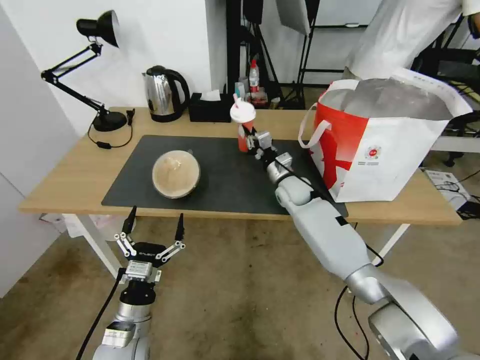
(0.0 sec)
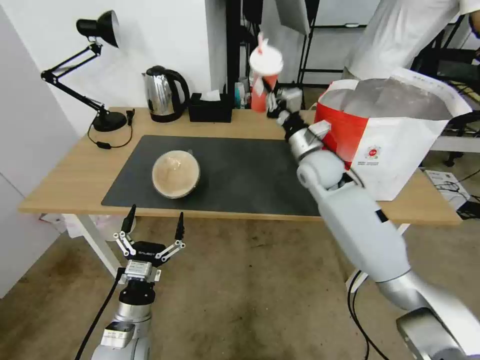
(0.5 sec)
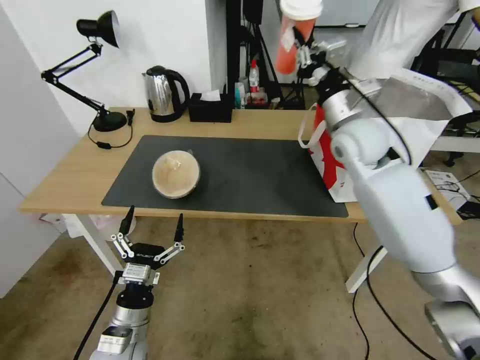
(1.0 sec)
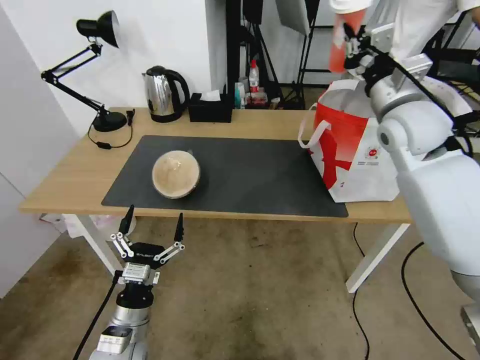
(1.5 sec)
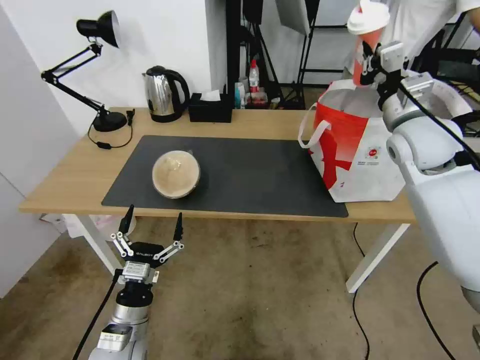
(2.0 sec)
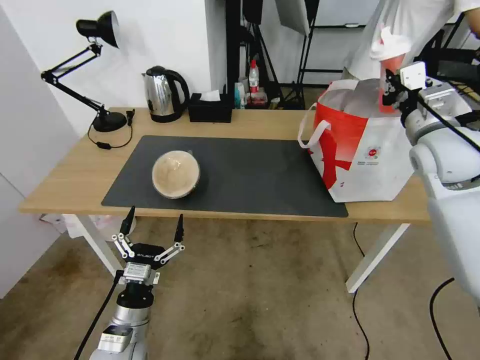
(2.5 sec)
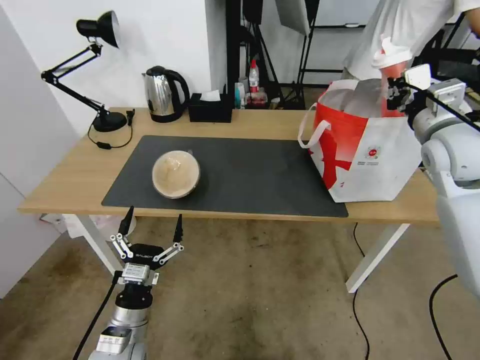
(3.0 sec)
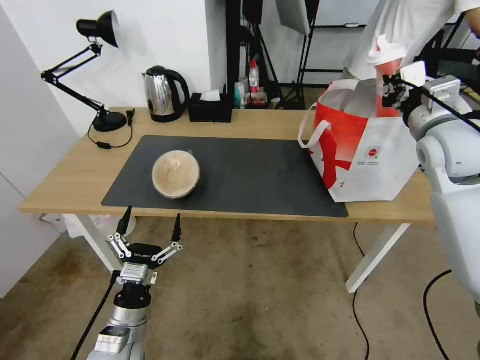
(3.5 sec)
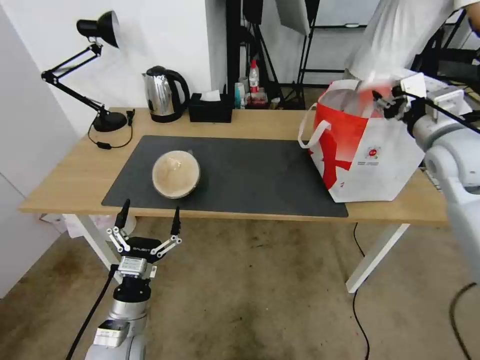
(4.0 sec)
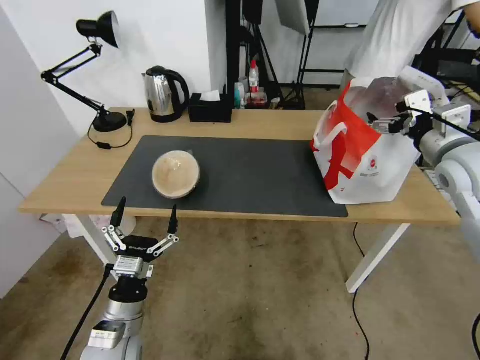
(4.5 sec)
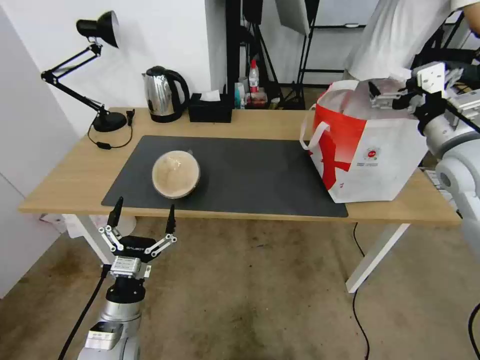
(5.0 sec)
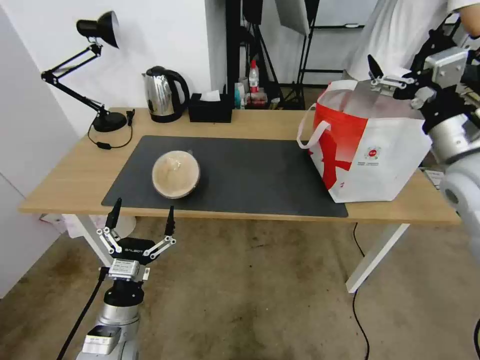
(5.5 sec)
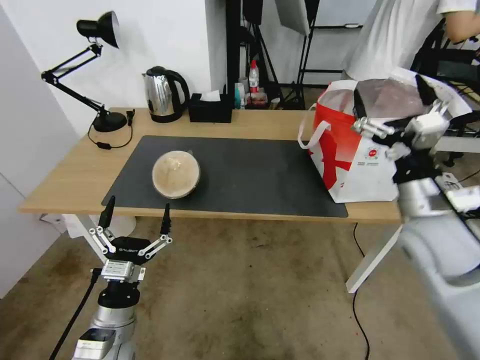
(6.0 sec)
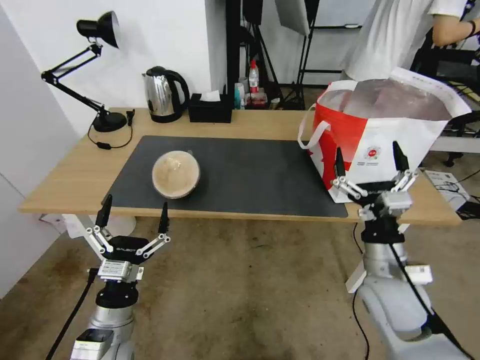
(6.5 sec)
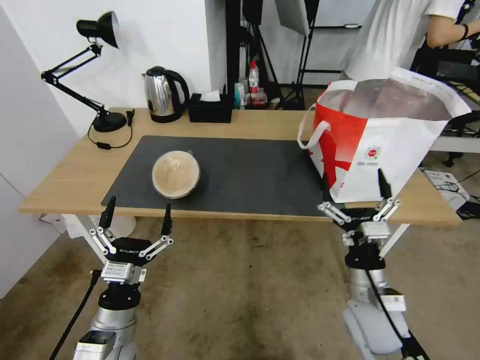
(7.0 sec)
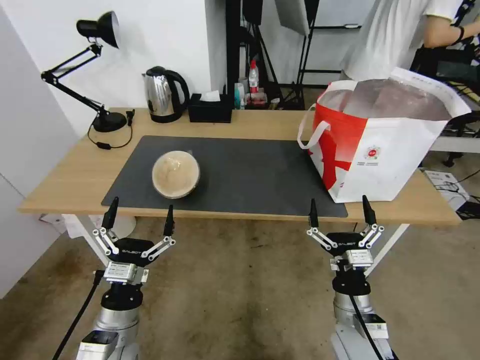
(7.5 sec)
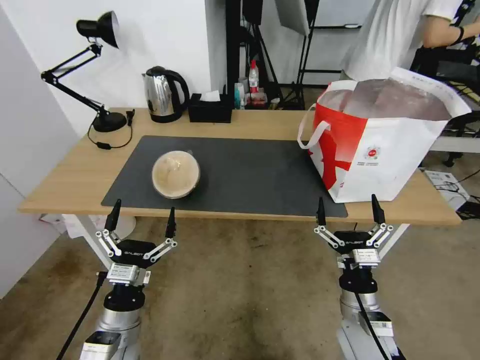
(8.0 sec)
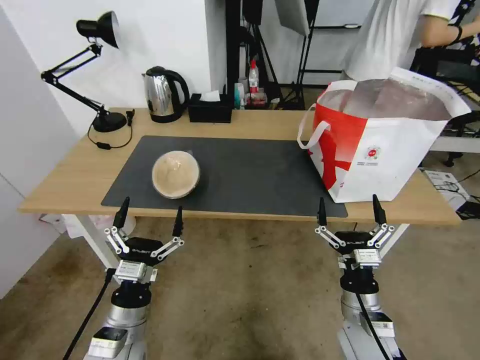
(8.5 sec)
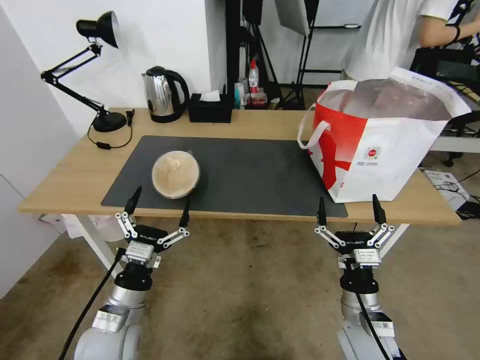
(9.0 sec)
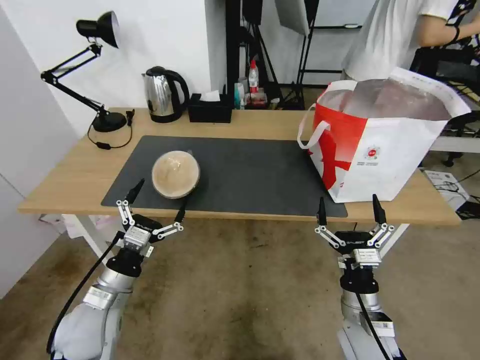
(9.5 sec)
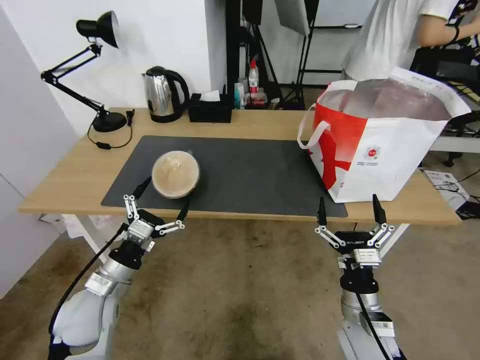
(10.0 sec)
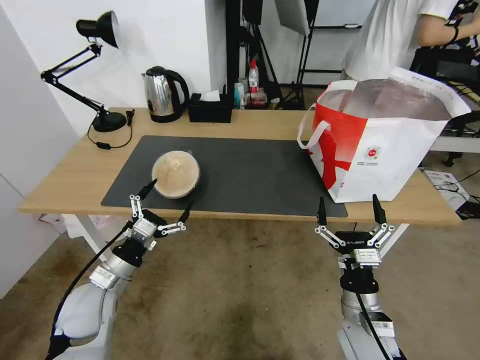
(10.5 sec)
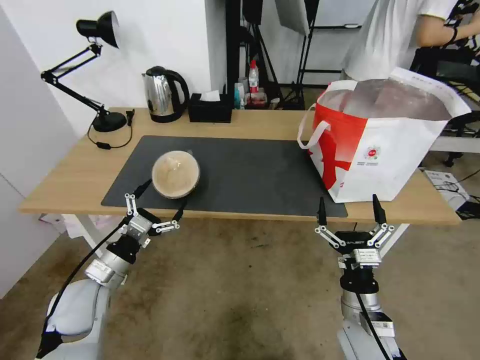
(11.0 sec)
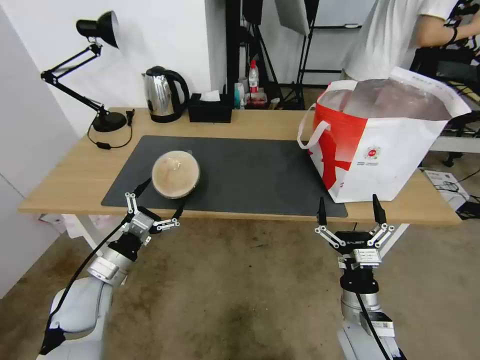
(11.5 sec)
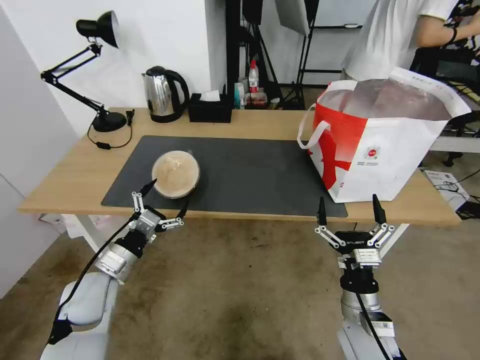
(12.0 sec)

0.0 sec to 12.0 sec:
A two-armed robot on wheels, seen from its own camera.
Task of the whole recording: Pick up the trash from the table and place it into the takeout bag.
0.0 sec to 2.0 sec: The right gripper travels upward and to the right by some 30 cm.
2.0 sec to 4.0 sec: The right gripper shifts by some 5 cm, and opens.
4.0 sec to 6.0 sec: The right gripper goes about 15 cm backward, downward and to the left, and opens.
6.0 sec to 8.0 sec: The right gripper shifts about 25 cm downward and backward.
8.0 sec to 10.0 sec: The left gripper goes roughly 10 cm forward and to the left.
10.0 sec to 12.0 sec: The grippers stay close to where they were, moving slightly.

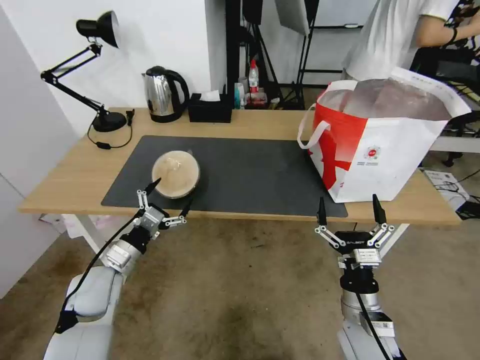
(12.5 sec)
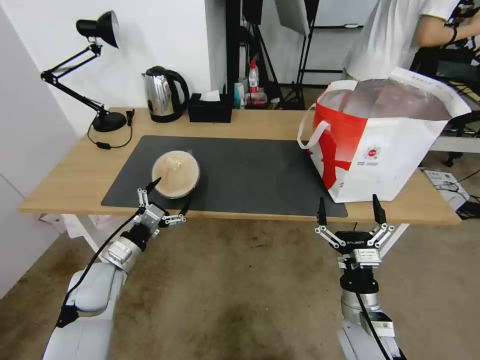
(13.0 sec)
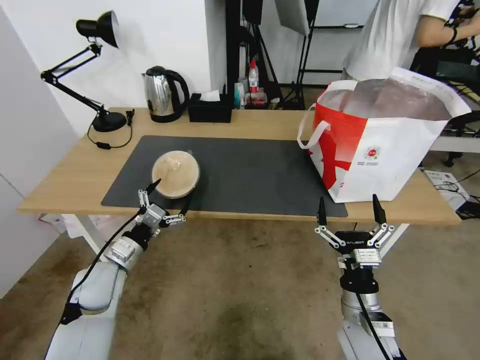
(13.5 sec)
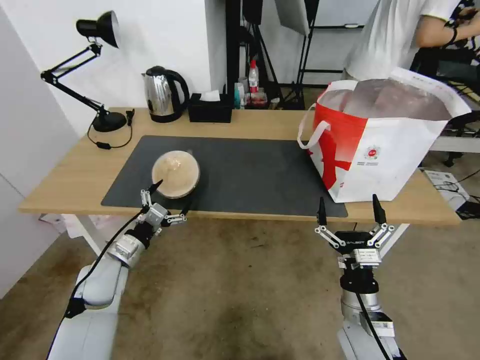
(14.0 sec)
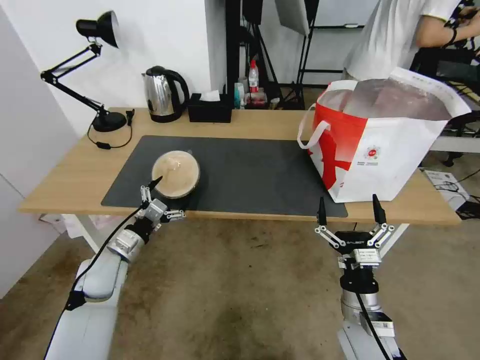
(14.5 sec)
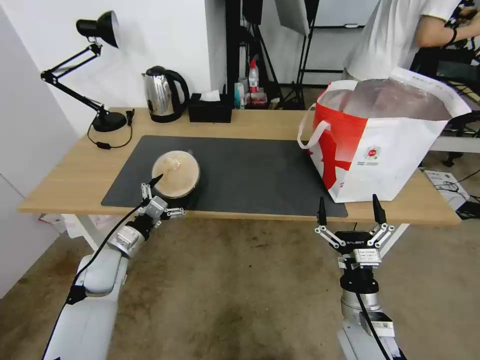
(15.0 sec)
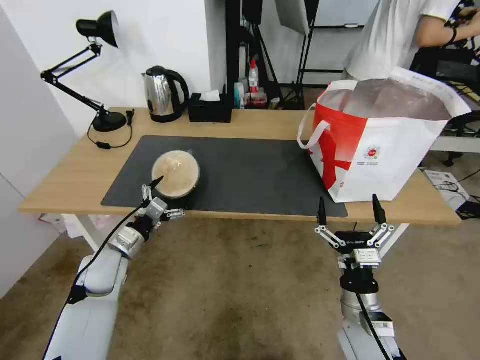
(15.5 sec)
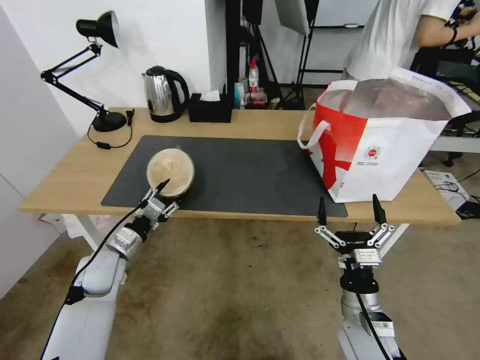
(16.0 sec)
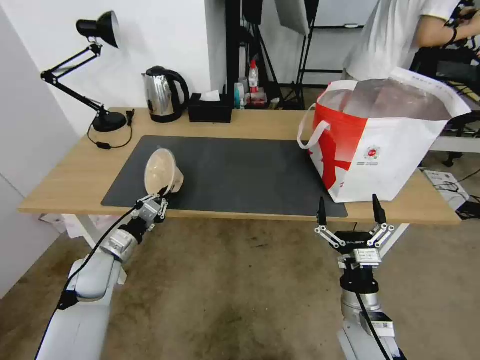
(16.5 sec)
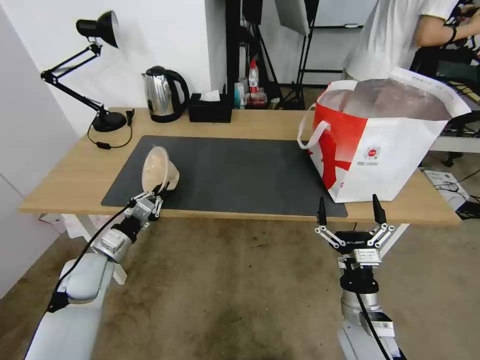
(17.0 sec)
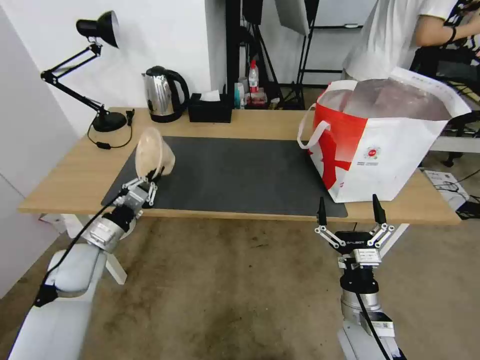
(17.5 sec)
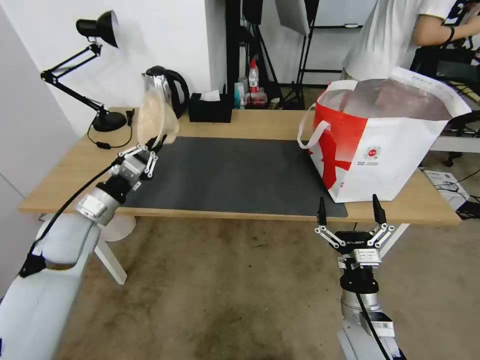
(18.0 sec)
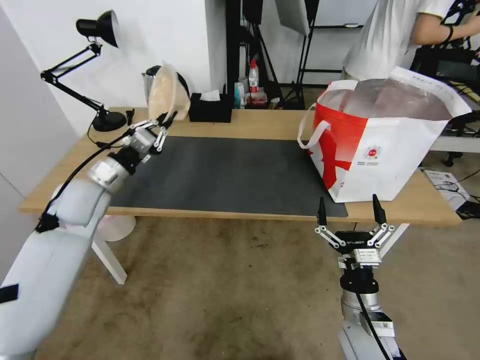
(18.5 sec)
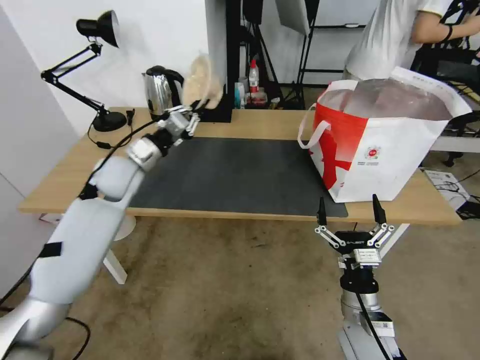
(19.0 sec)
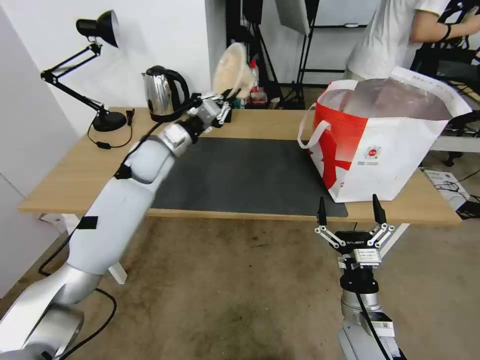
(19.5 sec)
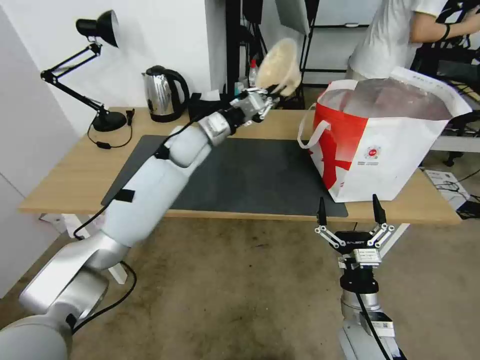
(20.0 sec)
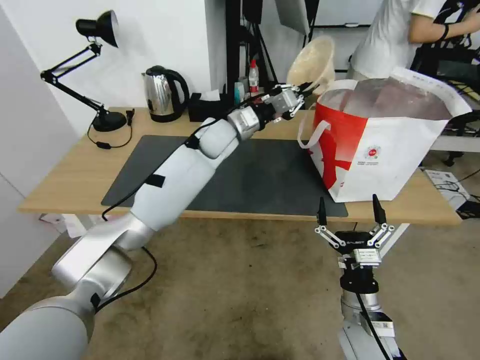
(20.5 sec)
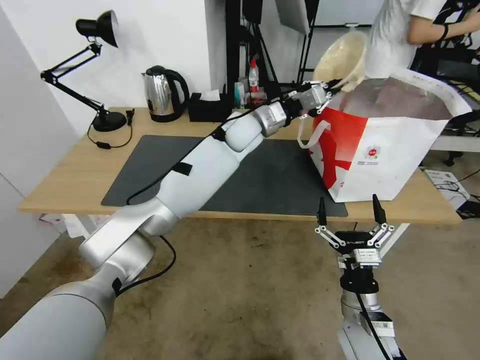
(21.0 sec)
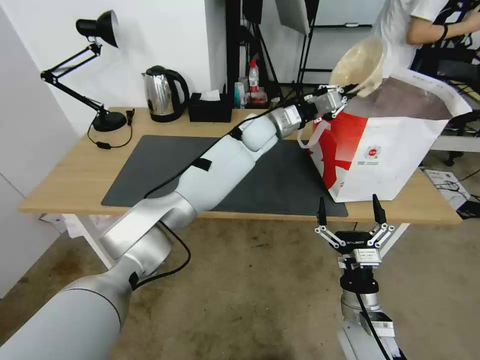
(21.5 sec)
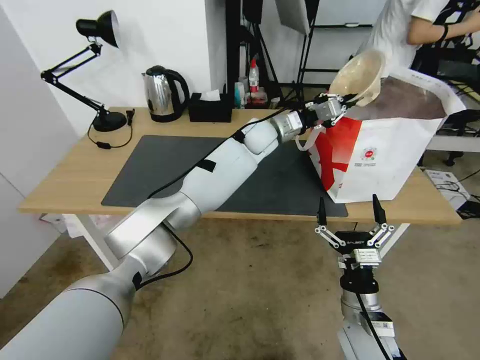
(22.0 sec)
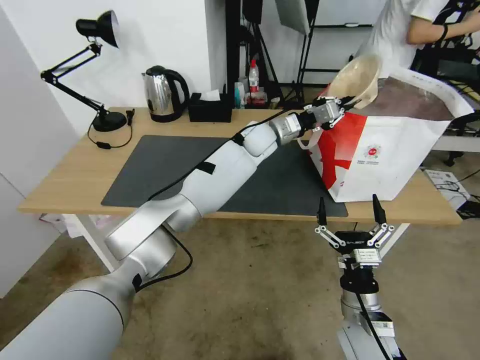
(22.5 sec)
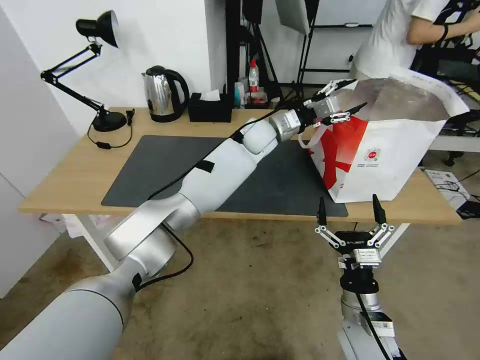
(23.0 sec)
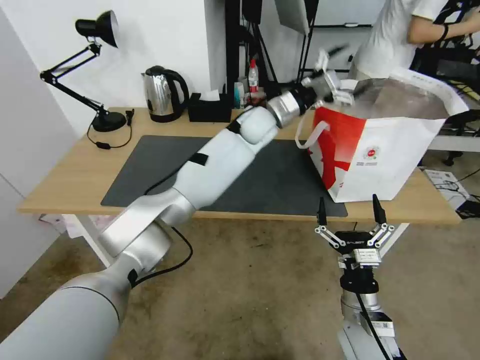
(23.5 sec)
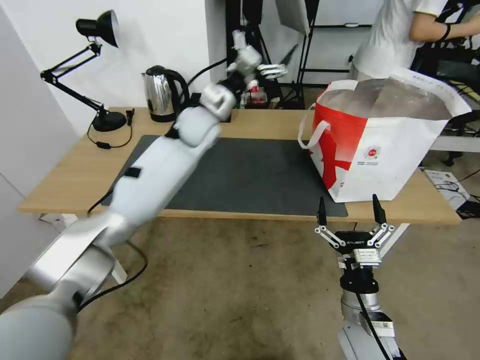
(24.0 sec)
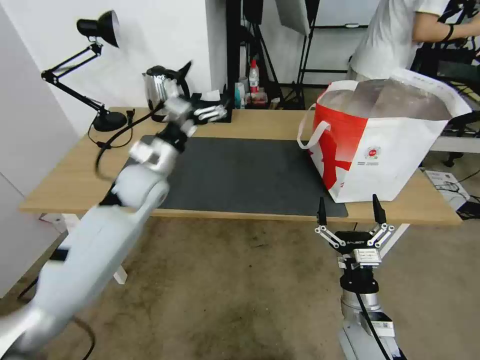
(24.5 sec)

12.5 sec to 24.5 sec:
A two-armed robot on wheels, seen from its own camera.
Task of the whole recording: Pick up the trash from the table and place it into the takeout bag.
12.5 sec to 14.5 sec: The grippers make only small movements.
14.5 sec to 16.5 sec: The left gripper closes.
16.5 sec to 18.5 sec: The left gripper travels upward and forward by about 15 cm.
18.5 sec to 20.5 sec: The left gripper heads to the right and forward, covering roughly 30 cm.
20.5 sec to 22.5 sec: The left gripper shifts roughly 10 cm to the right.
22.5 sec to 24.5 sec: The left gripper travels to the left and backward by some 30 cm, and opens its fingers.

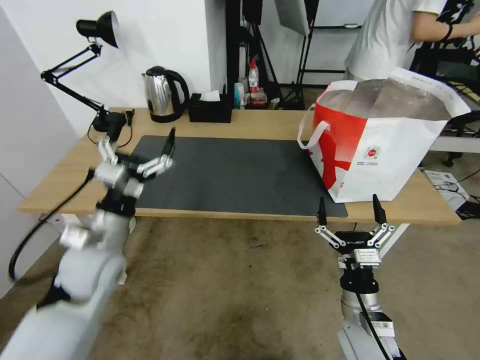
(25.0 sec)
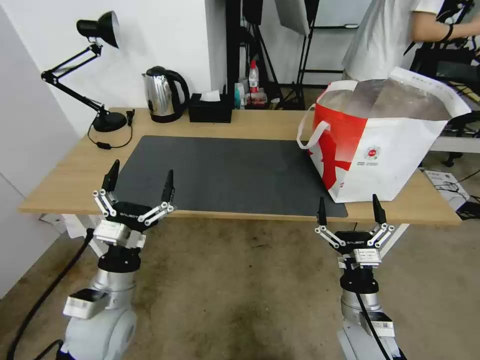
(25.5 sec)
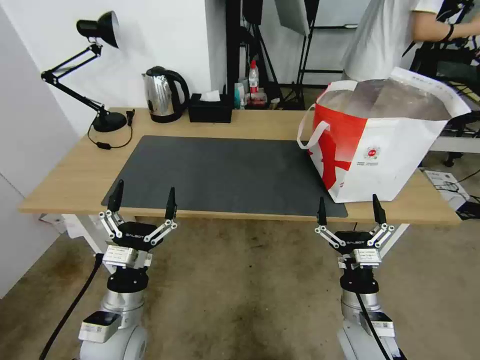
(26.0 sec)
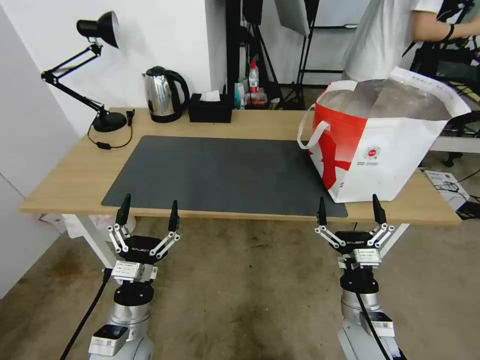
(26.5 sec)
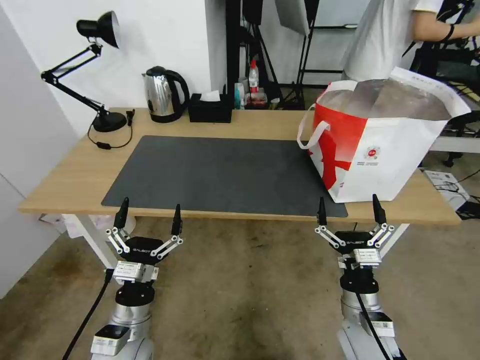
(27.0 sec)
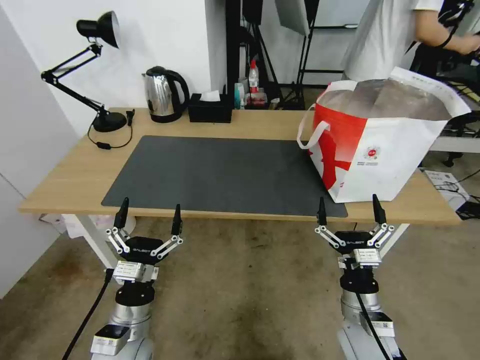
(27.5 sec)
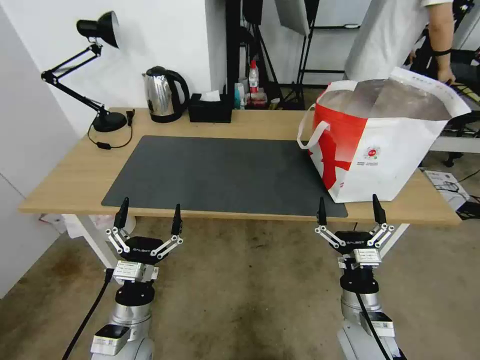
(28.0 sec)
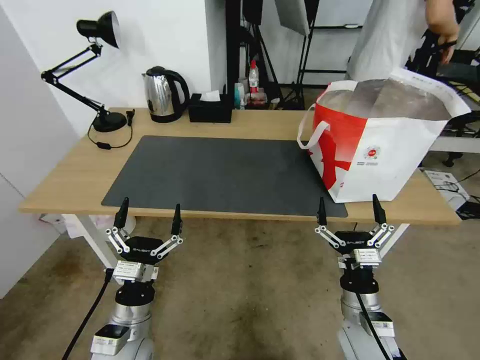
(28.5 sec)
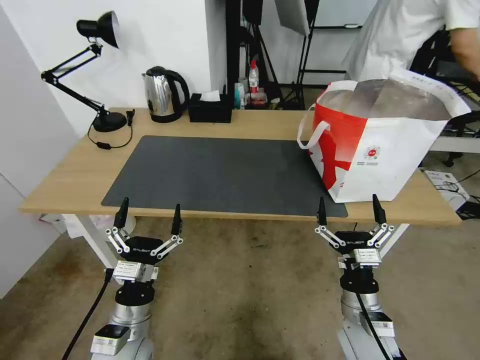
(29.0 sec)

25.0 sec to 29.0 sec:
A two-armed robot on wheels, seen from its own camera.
Task of the whole recording: Pick up the trash from the table and place it into the takeout bag.
25.0 sec to 27.0 sec: The left gripper travels downward, backward and to the right by roughly 20 cm.
27.0 sec to 29.0 sec: Both grippers stay put.
